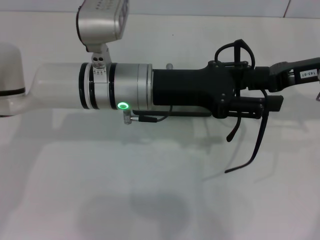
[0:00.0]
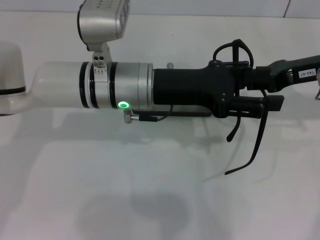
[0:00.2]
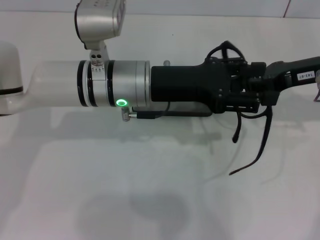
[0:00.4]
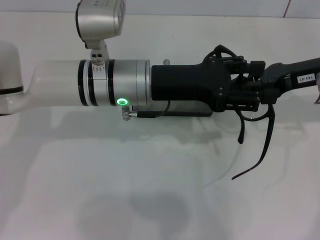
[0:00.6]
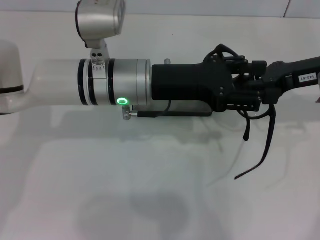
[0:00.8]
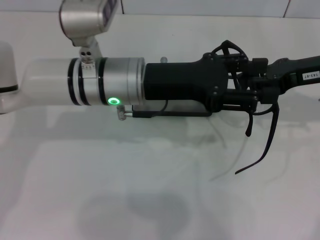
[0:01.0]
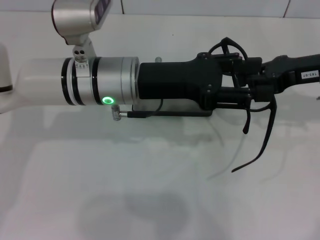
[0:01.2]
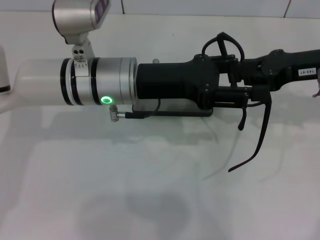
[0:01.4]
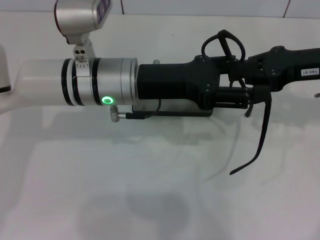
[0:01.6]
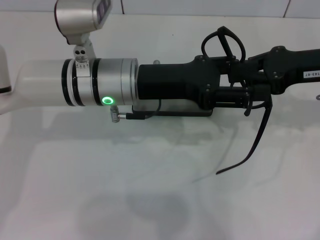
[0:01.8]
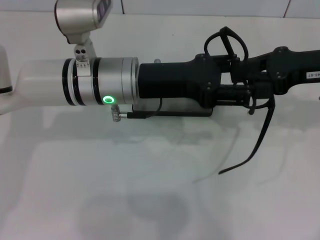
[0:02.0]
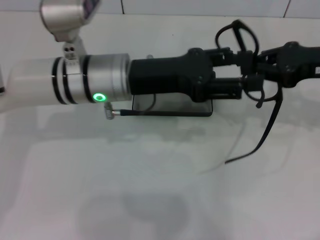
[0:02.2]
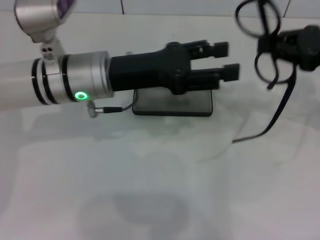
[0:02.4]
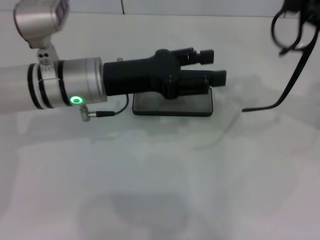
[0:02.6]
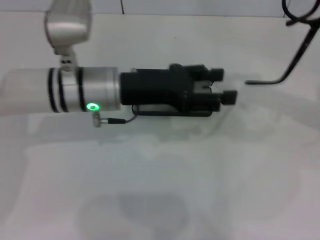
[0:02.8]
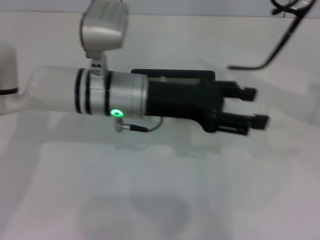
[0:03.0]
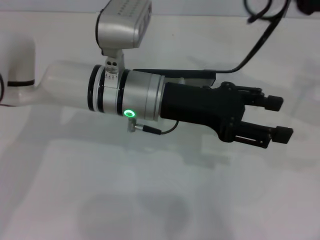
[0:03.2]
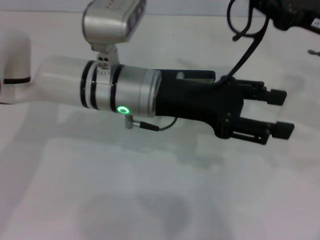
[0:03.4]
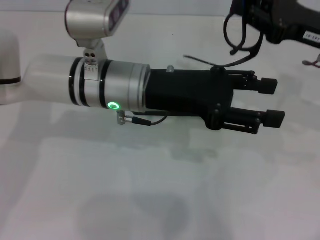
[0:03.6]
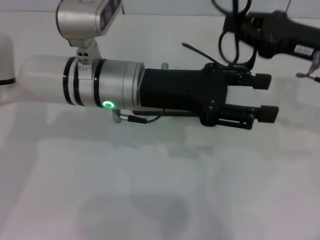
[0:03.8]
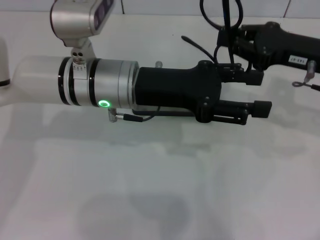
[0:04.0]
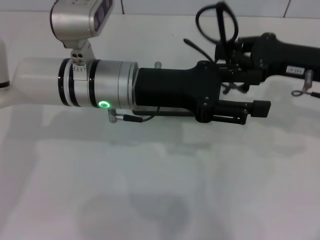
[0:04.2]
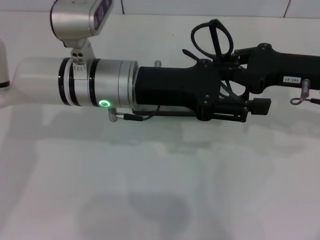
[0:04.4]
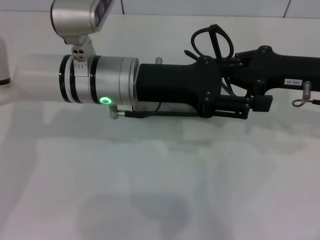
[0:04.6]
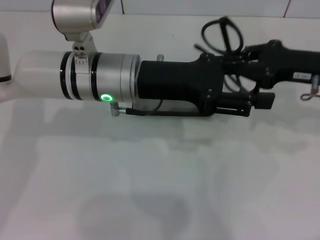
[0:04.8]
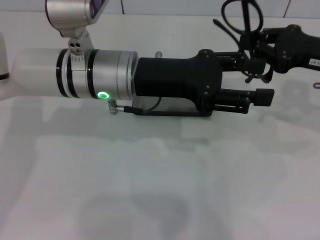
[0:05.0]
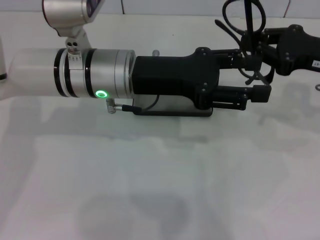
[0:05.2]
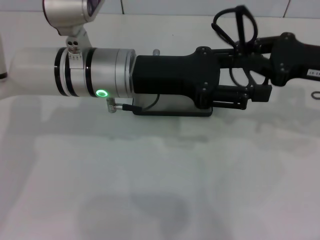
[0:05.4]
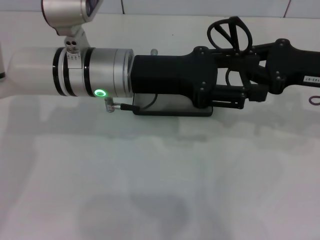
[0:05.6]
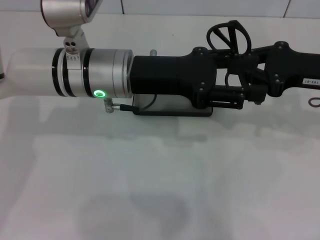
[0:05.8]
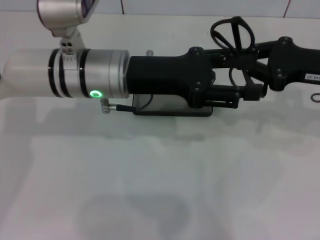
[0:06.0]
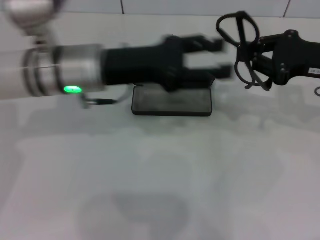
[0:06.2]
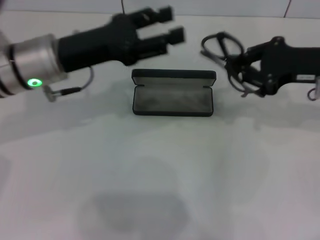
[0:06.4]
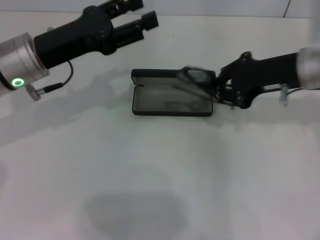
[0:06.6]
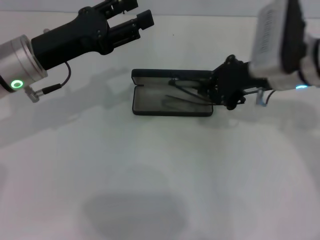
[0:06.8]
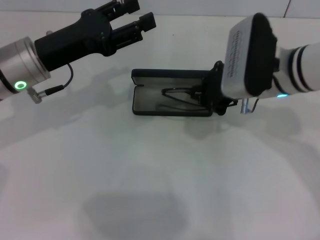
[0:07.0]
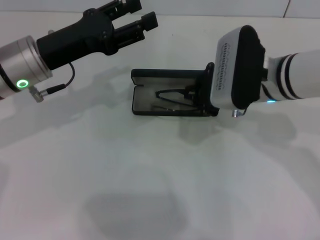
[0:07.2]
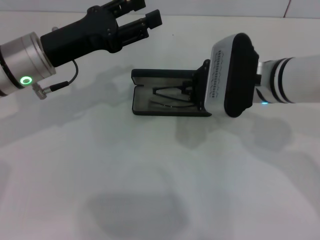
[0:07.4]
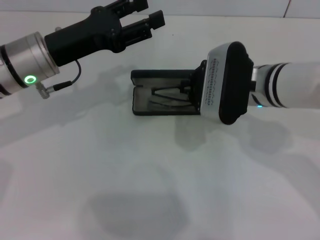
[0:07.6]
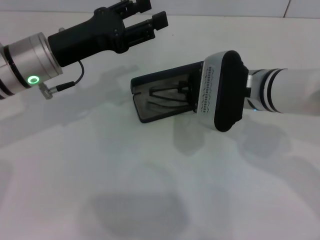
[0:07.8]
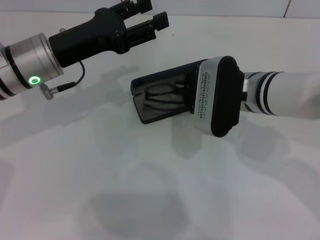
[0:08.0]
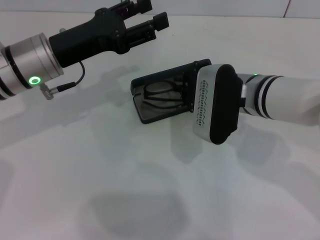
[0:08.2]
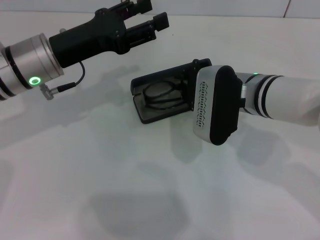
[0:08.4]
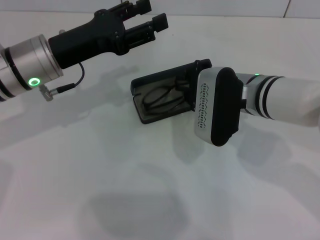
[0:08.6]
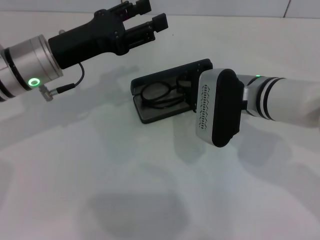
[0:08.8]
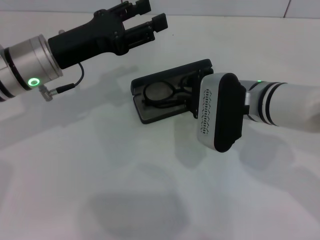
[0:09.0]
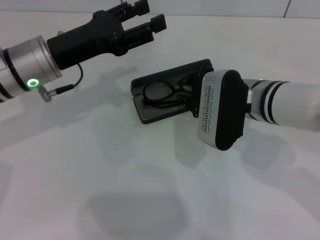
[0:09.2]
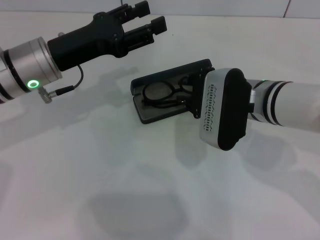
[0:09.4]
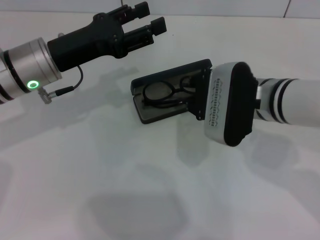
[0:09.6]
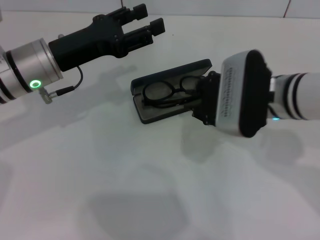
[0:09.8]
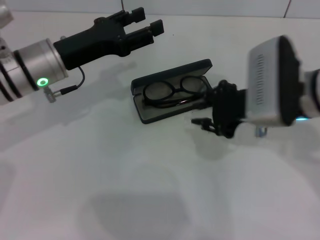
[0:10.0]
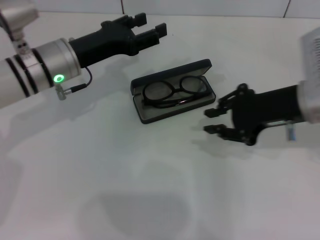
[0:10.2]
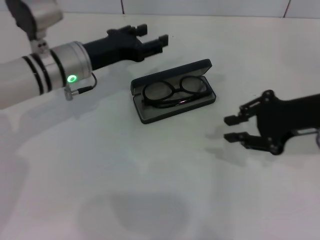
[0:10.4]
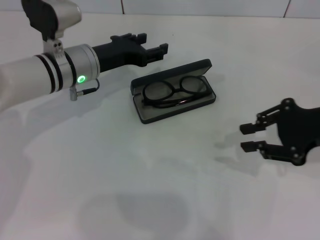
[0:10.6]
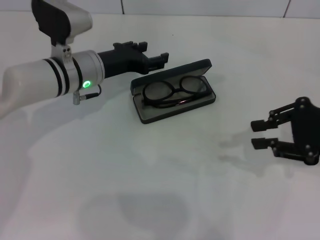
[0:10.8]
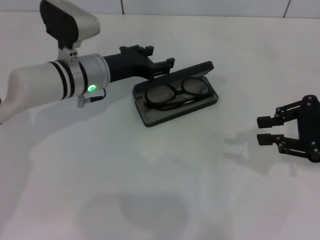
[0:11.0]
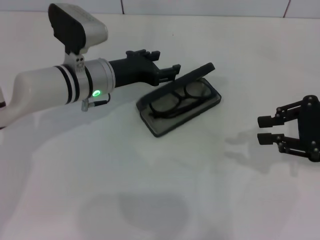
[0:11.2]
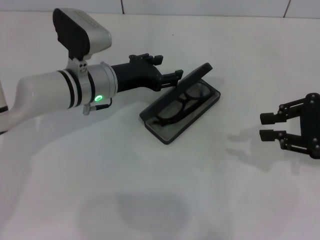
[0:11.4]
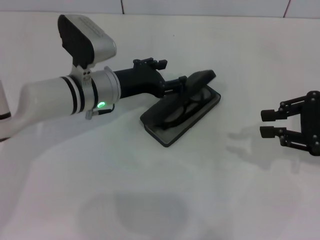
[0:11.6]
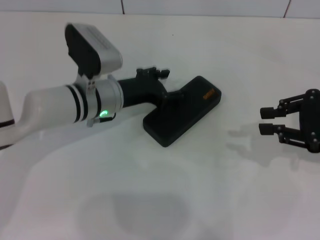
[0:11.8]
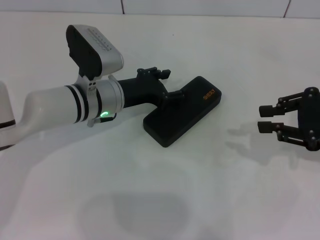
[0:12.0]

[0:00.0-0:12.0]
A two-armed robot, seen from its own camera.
Step, 0:00.0 to 0:04.6: Fold the frame with your left hand.
Step, 0:05.0 to 0:09.2: Put the glasses into the case with your right hand.
Step, 0:09.4 to 0:11.8: Close the glasses case with your left hand.
0:00.0 to 0:01.6: There are only small adjustments of the grippers.
0:03.0 to 0:04.4: The right gripper goes roughly 10 cm downward and to the left.
0:04.4 to 0:06.0: There are only small adjustments of the grippers.
0:06.0 to 0:07.6: The right gripper travels to the left by some 15 cm, while the left gripper is displaced to the left by some 10 cm.
0:07.6 to 0:09.0: The grippers make only small movements.
0:09.0 to 0:10.4: The left gripper changes place by approximately 5 cm. The right gripper heads to the right and upward, covering approximately 15 cm.
0:10.4 to 0:12.0: The left gripper moves some 5 cm. Meanwhile the right gripper goes about 5 cm to the right.

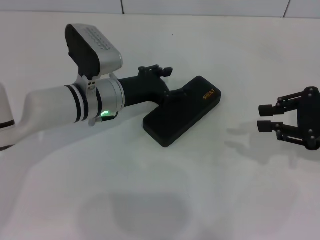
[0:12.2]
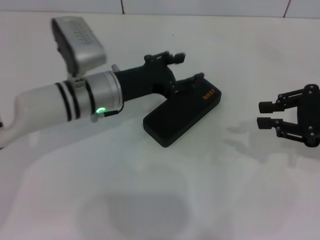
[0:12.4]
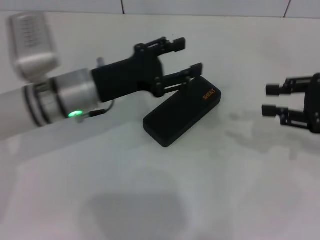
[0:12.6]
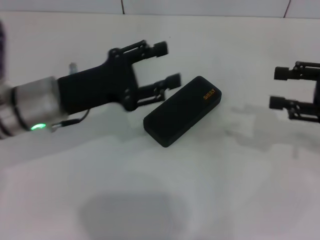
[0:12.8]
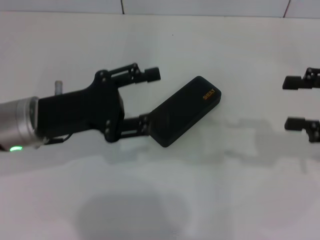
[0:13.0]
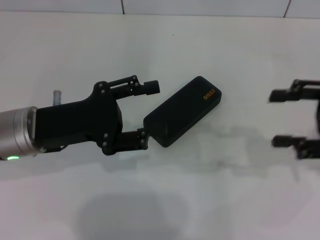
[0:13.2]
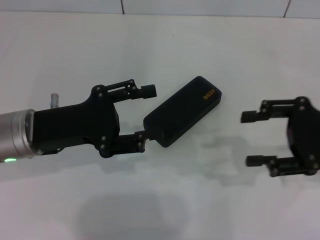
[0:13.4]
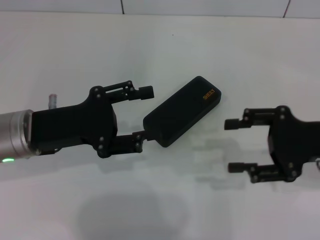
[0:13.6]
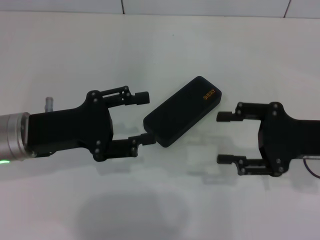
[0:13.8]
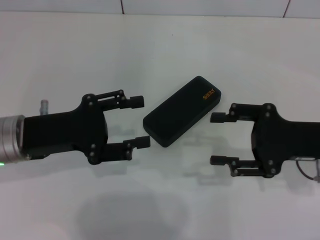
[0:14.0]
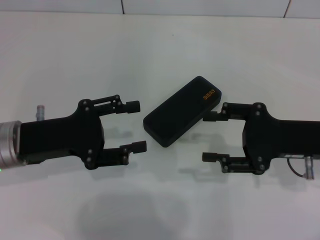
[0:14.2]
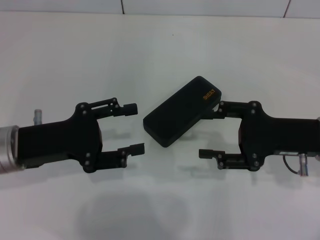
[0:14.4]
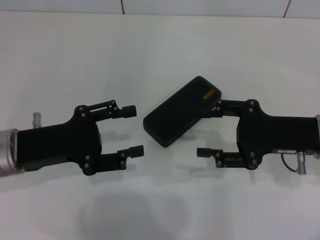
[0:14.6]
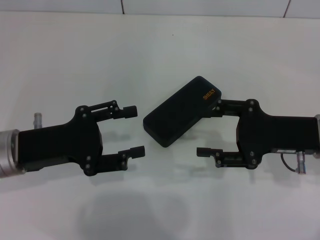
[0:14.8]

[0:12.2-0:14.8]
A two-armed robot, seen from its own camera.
0:12.2 to 0:13.4: The left gripper shifts roughly 15 cm backward and to the left. The right gripper opens its fingers.
0:13.4 to 0:14.8: The right gripper moves to the left, some 5 cm.
